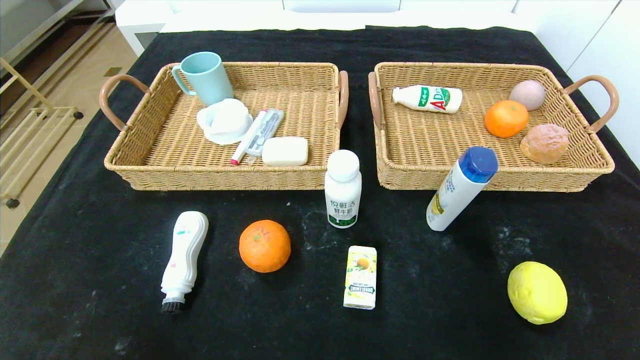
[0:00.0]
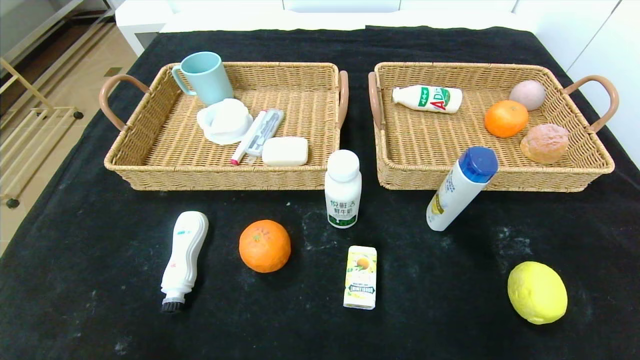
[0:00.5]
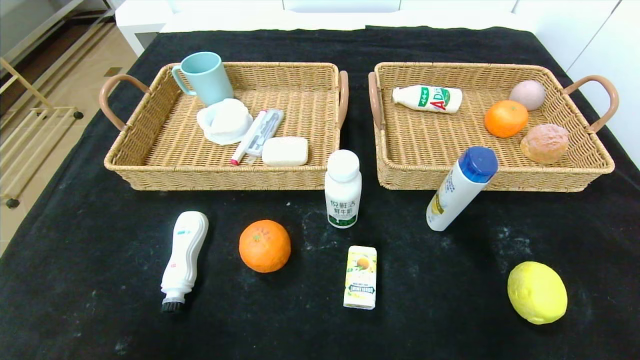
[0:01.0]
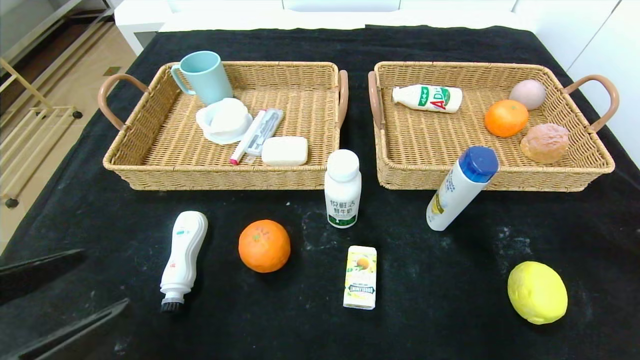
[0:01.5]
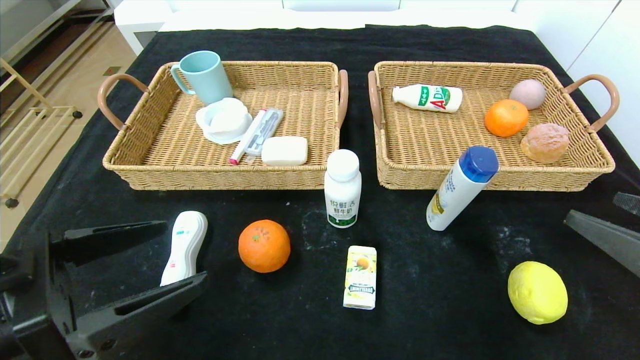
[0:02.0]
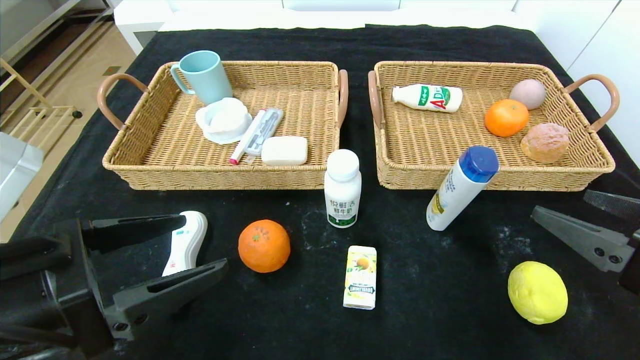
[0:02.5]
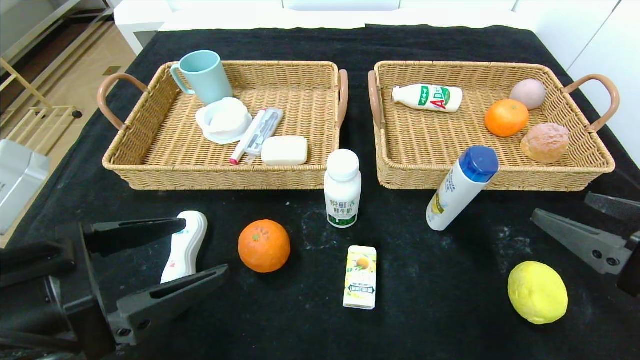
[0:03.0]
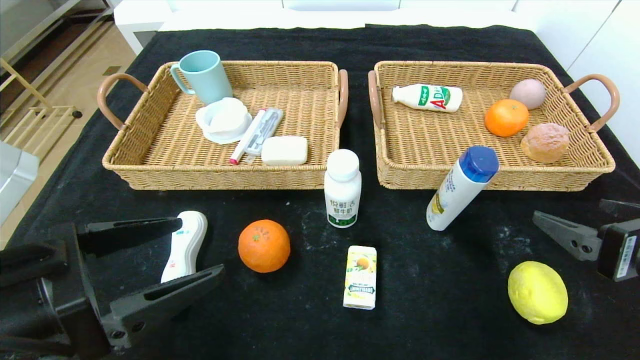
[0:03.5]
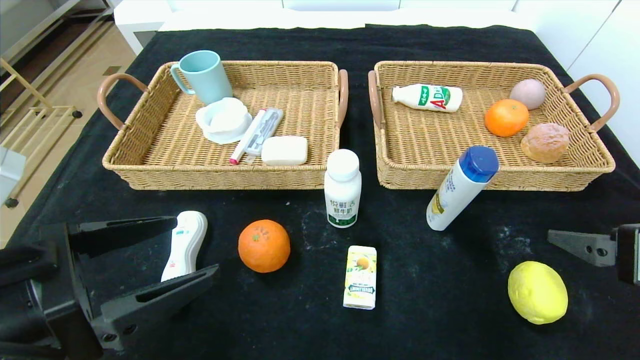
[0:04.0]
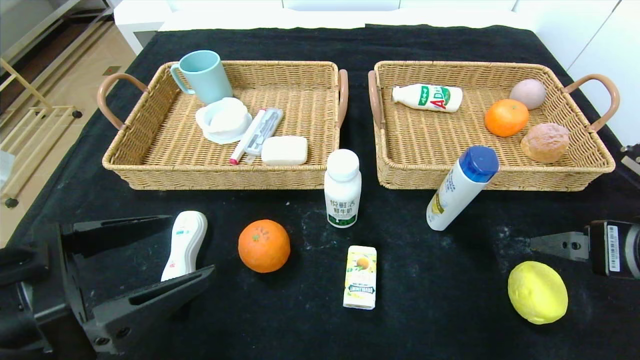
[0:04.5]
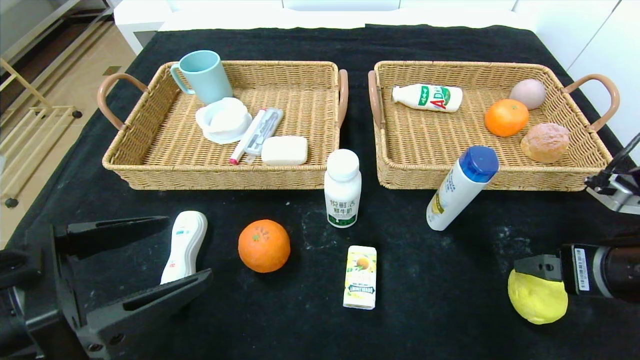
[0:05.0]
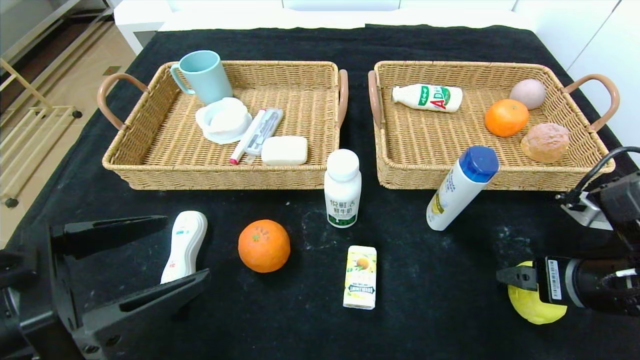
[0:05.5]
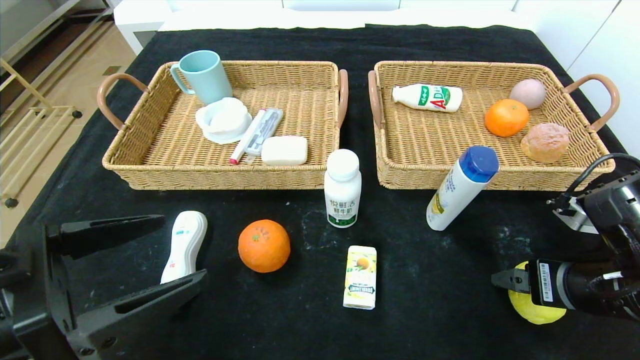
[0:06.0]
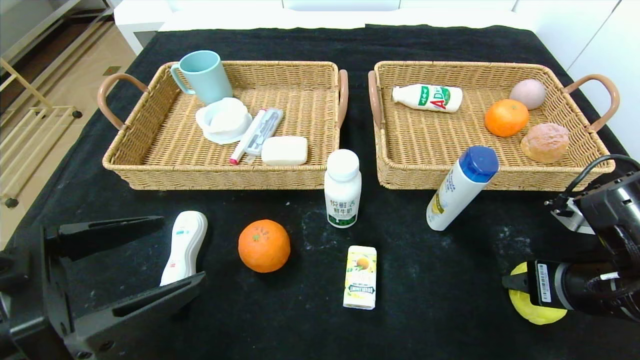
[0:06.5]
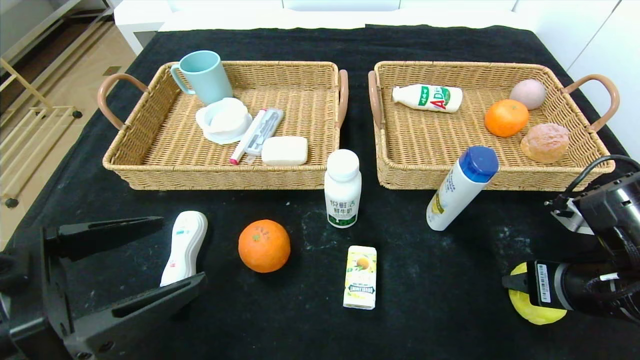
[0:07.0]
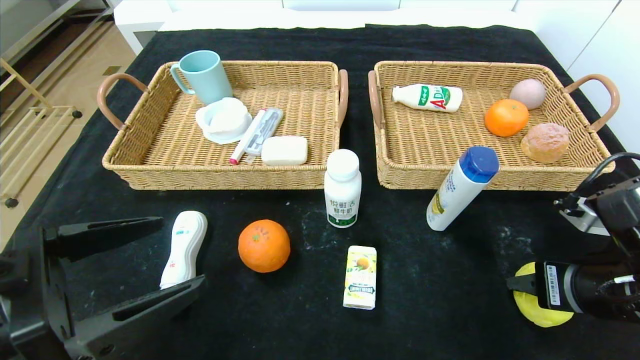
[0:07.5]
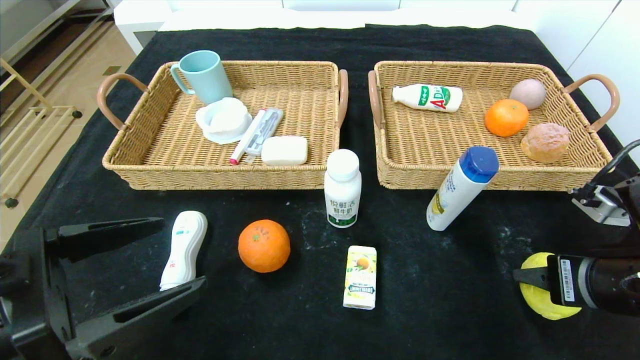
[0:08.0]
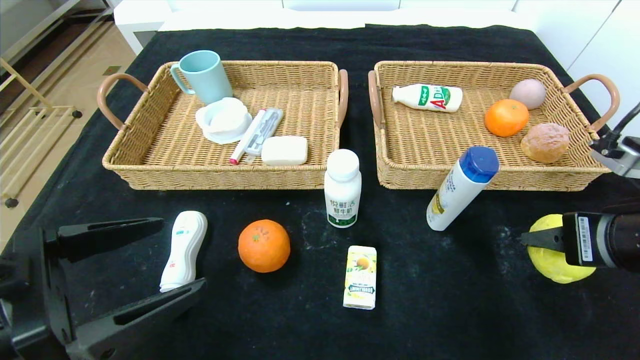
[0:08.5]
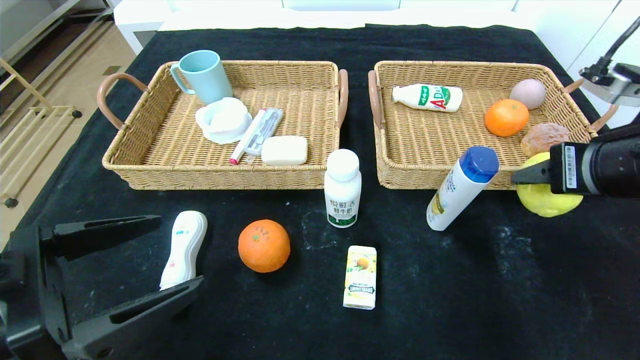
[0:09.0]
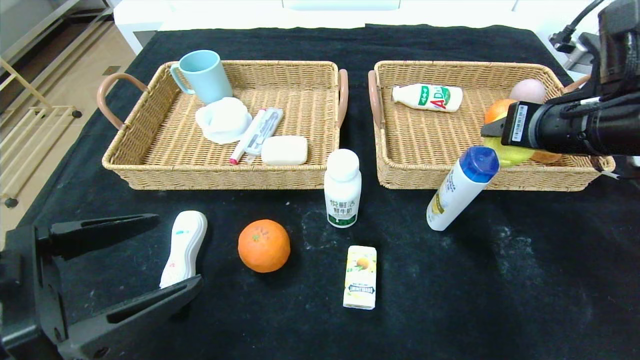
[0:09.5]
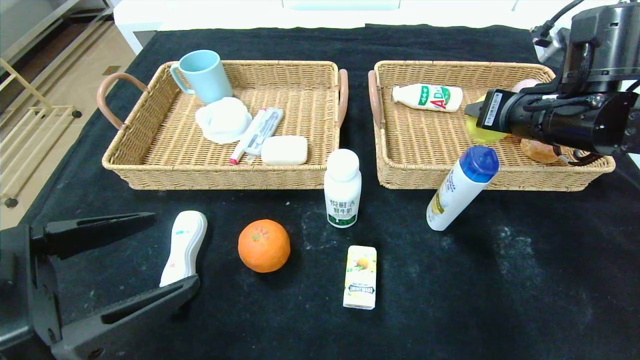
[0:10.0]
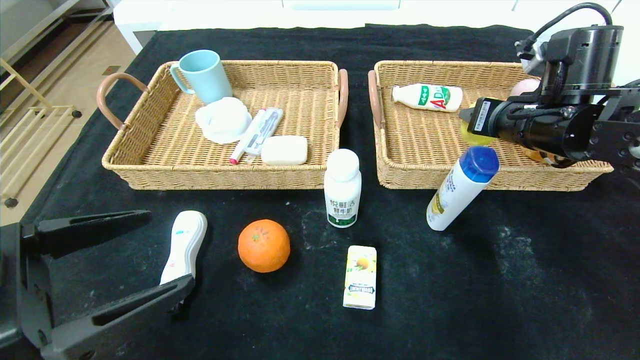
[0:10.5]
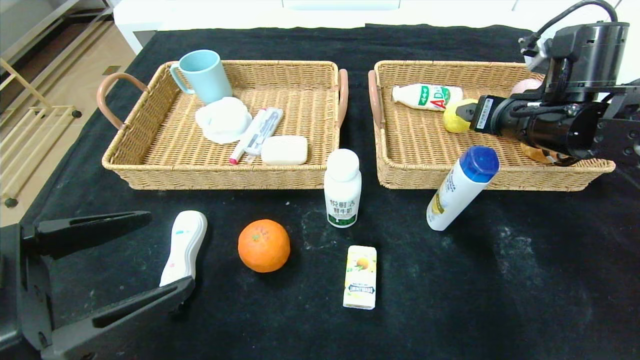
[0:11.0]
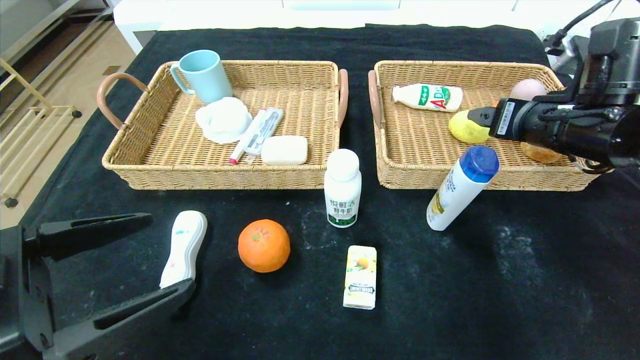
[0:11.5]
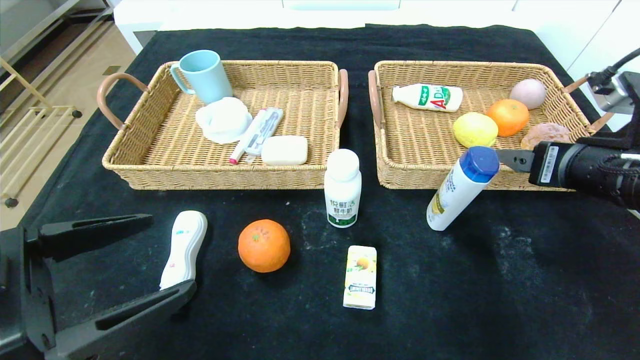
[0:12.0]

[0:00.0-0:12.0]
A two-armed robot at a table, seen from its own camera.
Step, 0.0 to 11.5 s: Grasp the lemon and put it in the right basket.
0.0 to 2.0 s: Both grippers travel together upward and forward, some 20 cm.
4.0 to 6.0 s: The right gripper moves downward, roughly 5 cm.
6.0 to 8.0 s: The right gripper closes its fingers.
8.0 to 10.0 s: The right gripper moves forward and upward, roughly 15 cm.
10.0 to 12.0 s: The right gripper moves backward, roughly 10 cm, and opens.

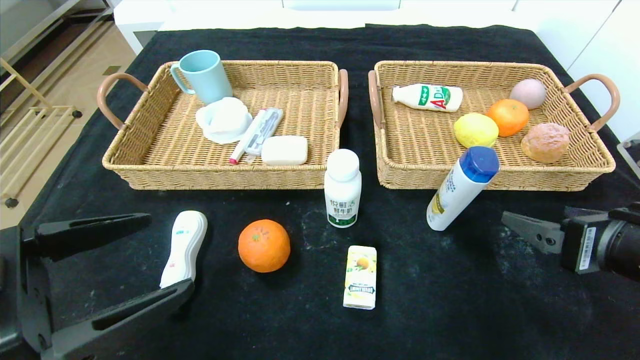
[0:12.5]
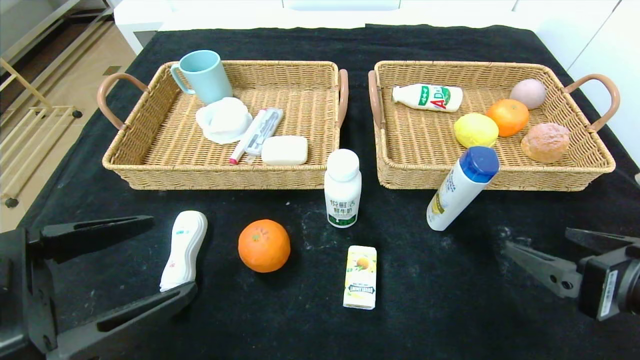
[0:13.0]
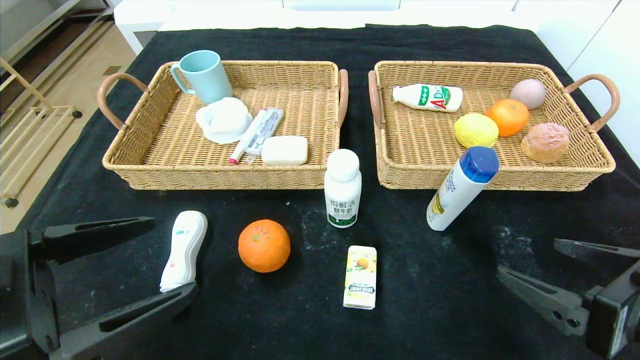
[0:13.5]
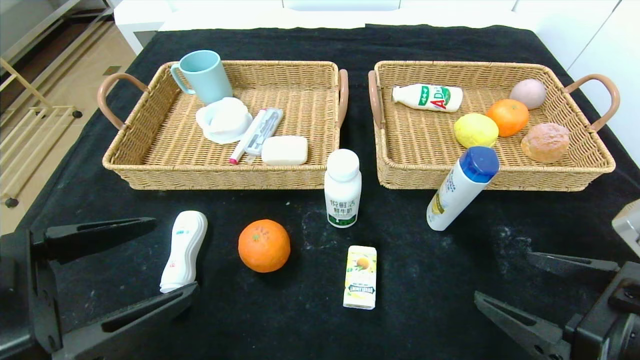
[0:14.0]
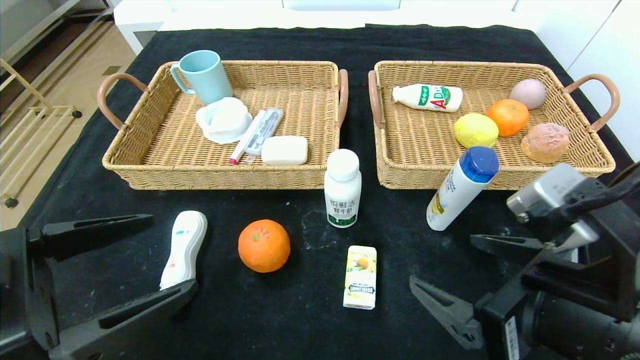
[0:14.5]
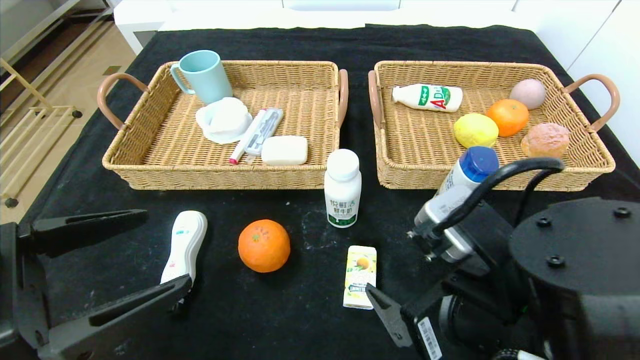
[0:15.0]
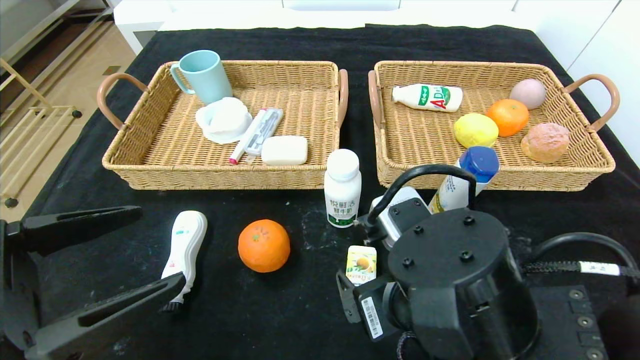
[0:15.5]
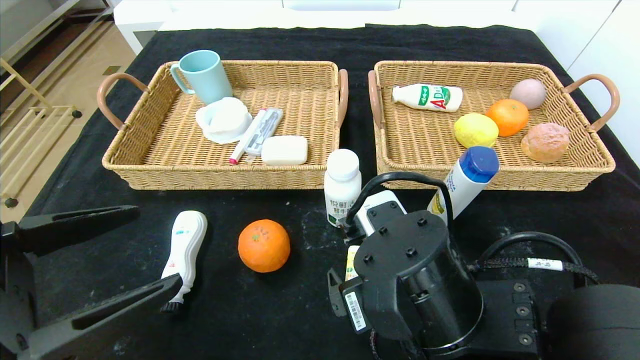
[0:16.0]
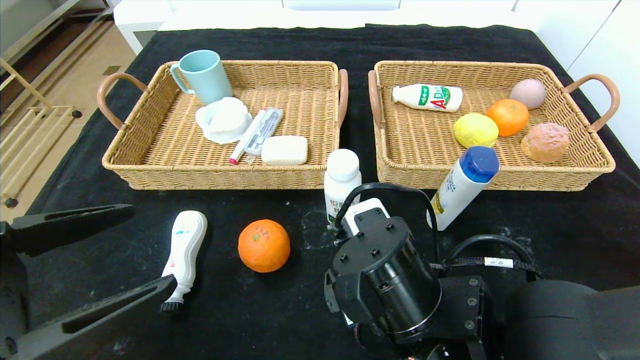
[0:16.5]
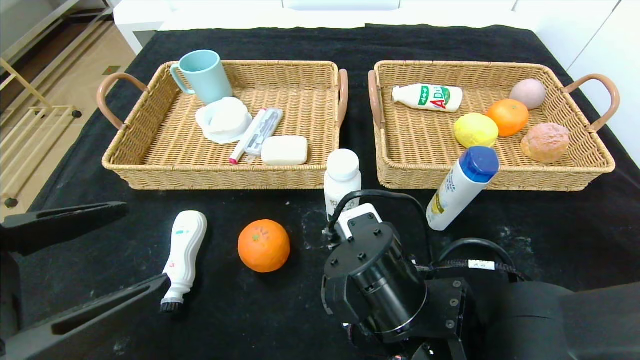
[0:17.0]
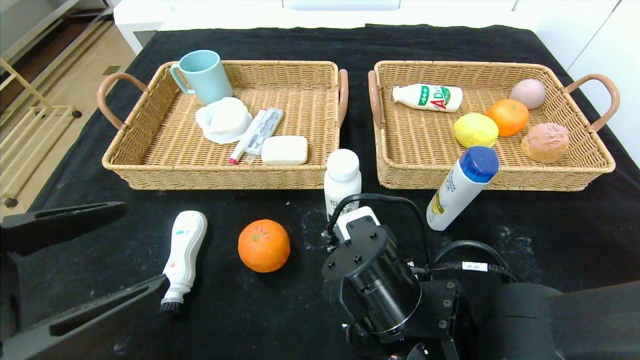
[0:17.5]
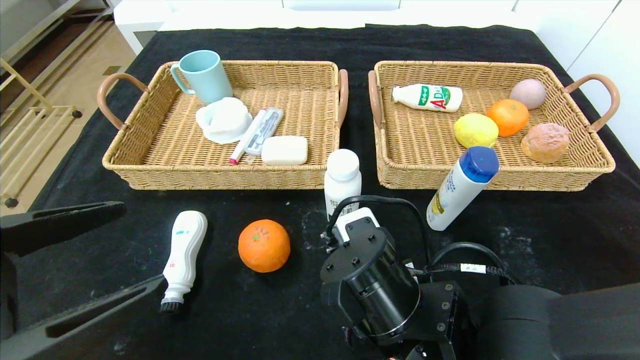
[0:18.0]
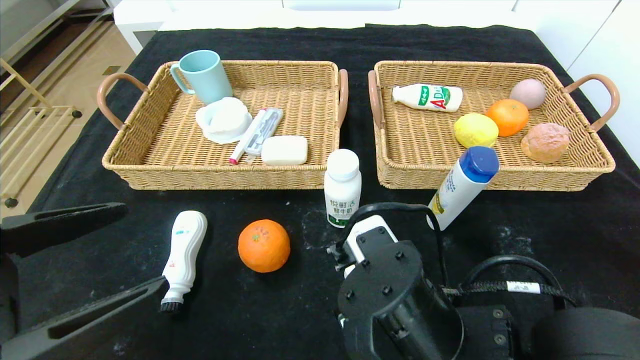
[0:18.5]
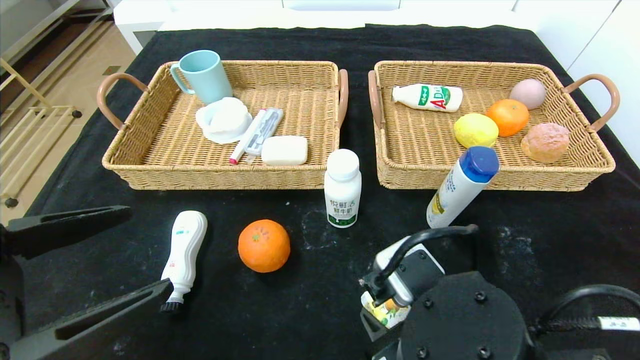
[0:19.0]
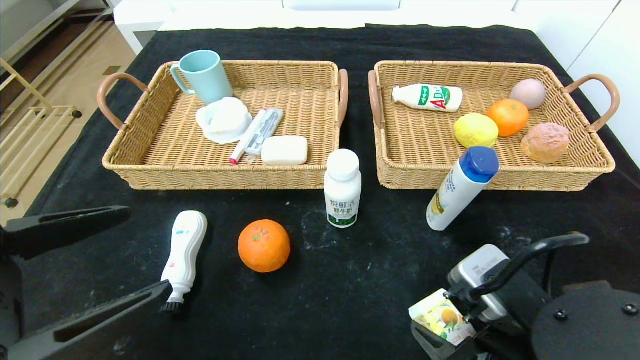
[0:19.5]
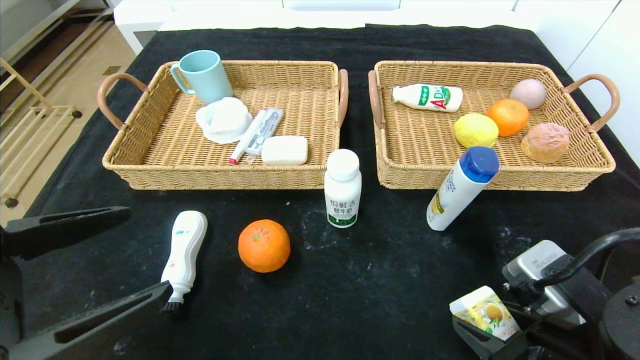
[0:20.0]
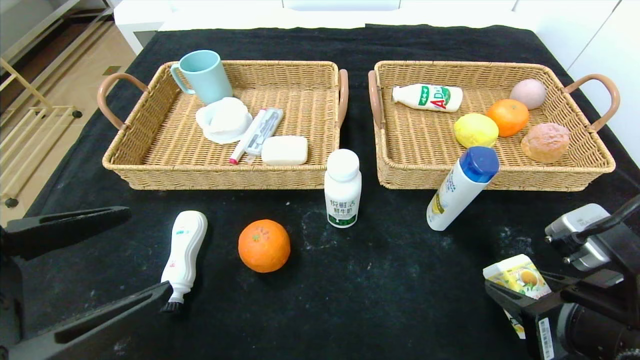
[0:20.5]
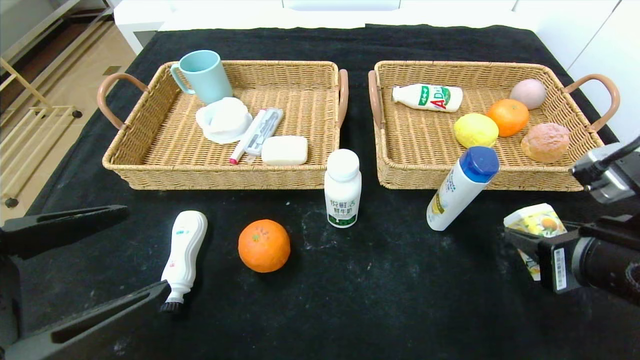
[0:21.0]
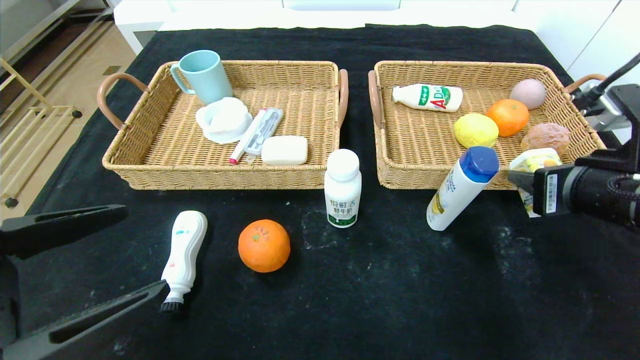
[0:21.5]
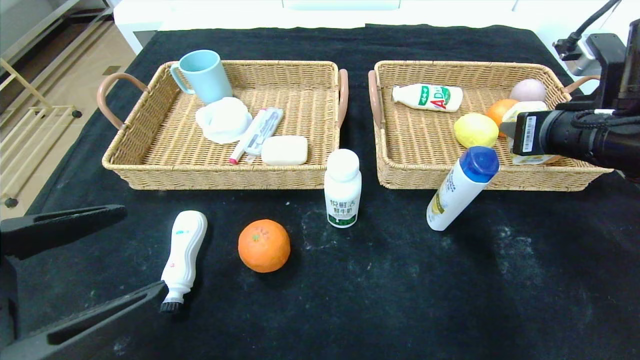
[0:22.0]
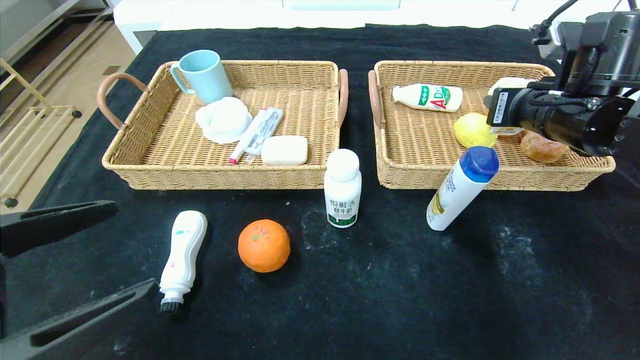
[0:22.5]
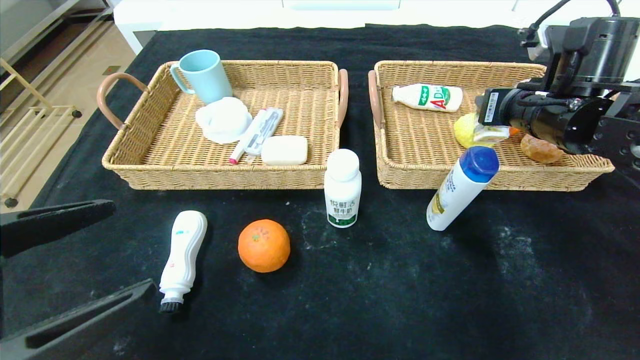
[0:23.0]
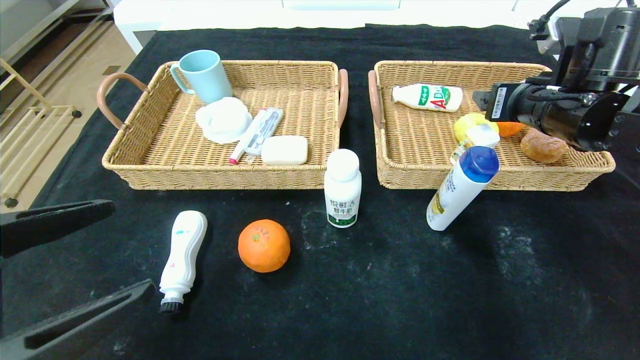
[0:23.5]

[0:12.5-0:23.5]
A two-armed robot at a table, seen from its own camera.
12.5 to 14.5 s: The right gripper shifts some 10 cm to the left.
14.5 to 16.0 s: The right gripper travels to the left by approximately 10 cm.
16.0 to 18.0 s: The right gripper closes up.
18.0 to 20.0 s: The right gripper is displaced to the right and backward by some 15 cm.
20.0 to 21.5 s: The right gripper goes approximately 15 cm forward, upward and to the right.
21.5 to 23.5 s: The right gripper goes approximately 10 cm forward, and opens up.
